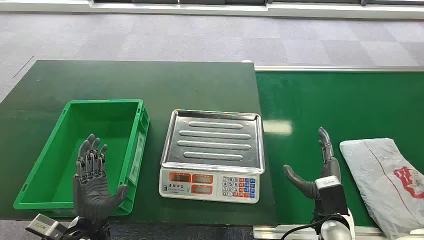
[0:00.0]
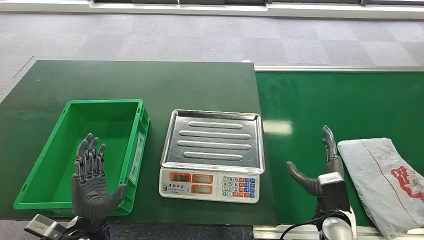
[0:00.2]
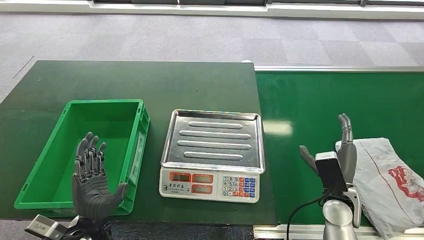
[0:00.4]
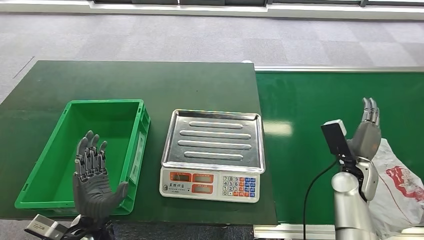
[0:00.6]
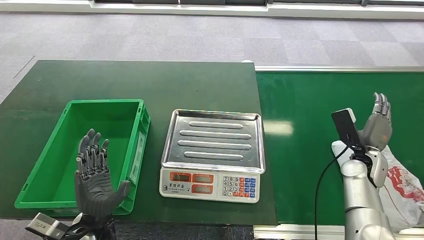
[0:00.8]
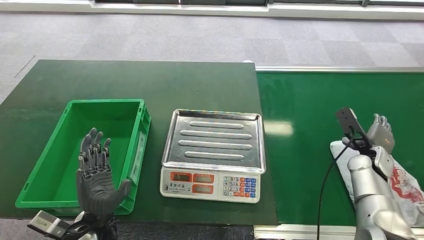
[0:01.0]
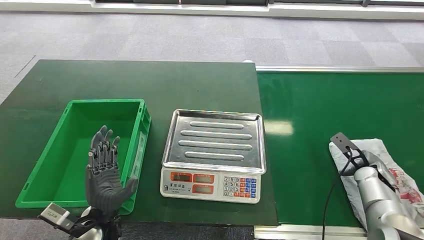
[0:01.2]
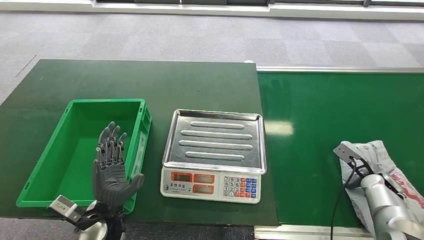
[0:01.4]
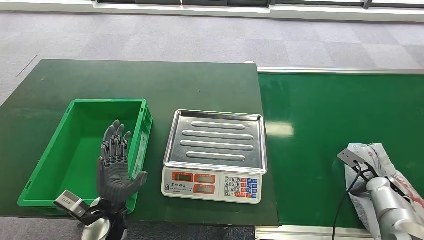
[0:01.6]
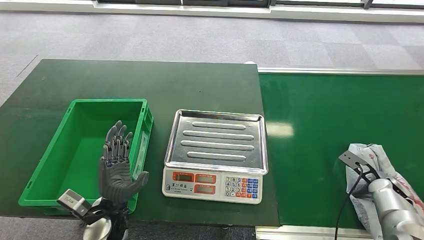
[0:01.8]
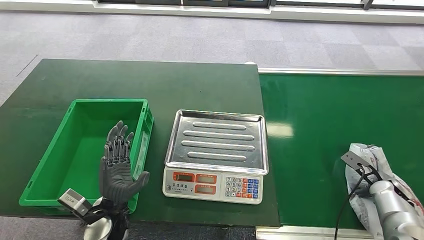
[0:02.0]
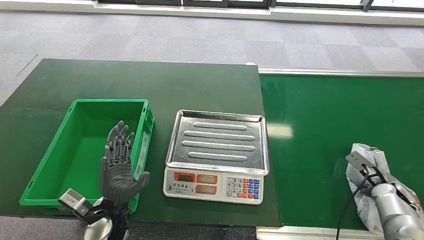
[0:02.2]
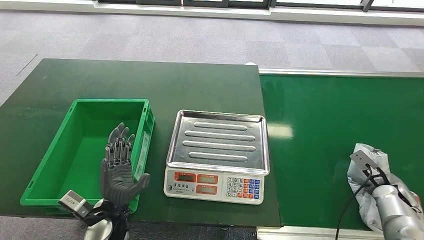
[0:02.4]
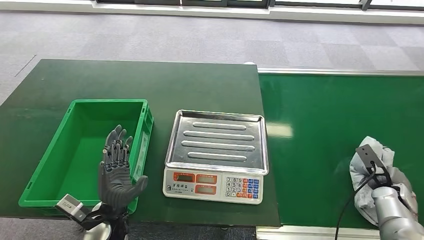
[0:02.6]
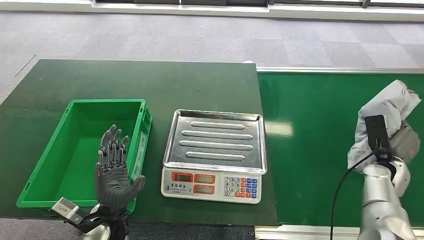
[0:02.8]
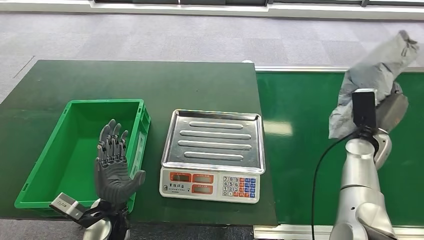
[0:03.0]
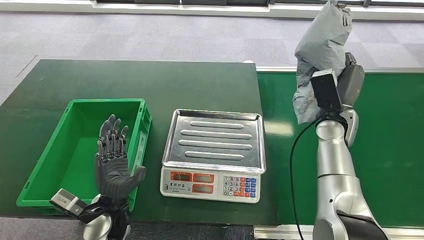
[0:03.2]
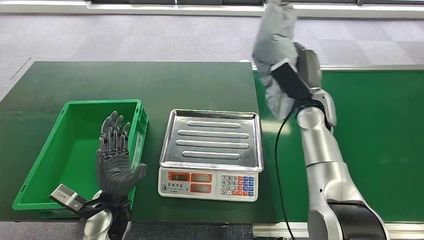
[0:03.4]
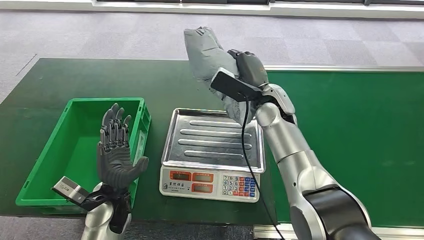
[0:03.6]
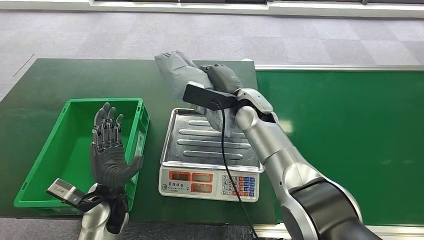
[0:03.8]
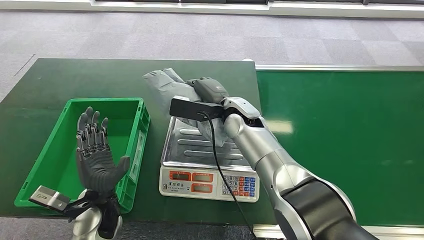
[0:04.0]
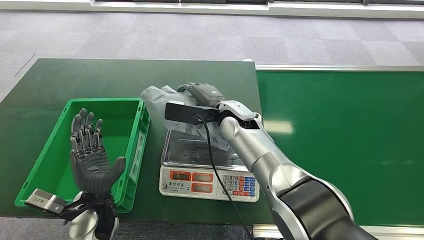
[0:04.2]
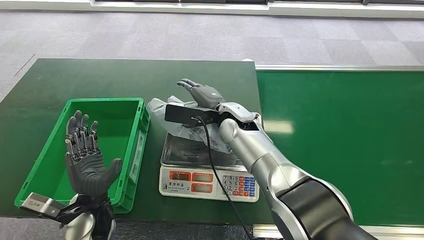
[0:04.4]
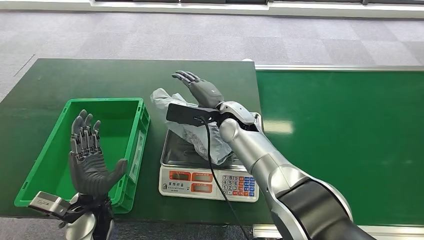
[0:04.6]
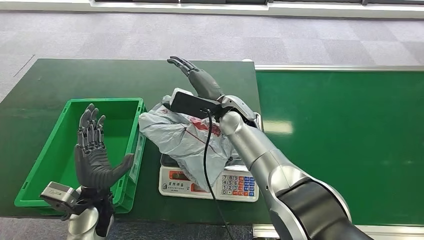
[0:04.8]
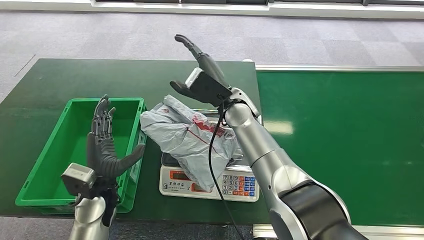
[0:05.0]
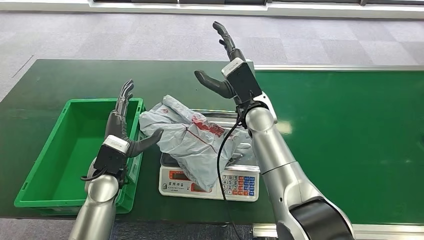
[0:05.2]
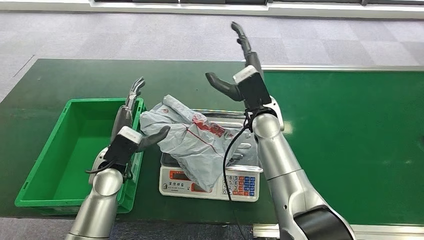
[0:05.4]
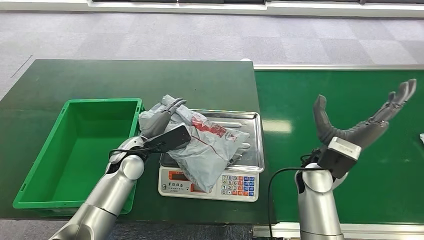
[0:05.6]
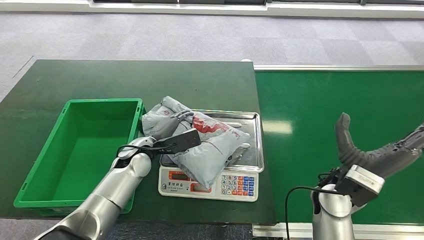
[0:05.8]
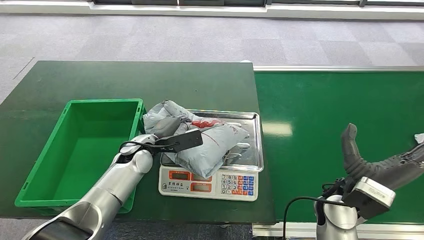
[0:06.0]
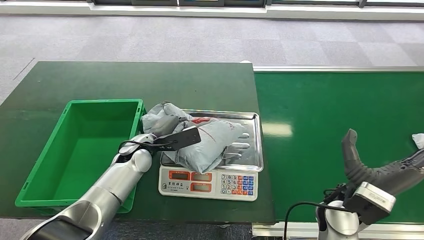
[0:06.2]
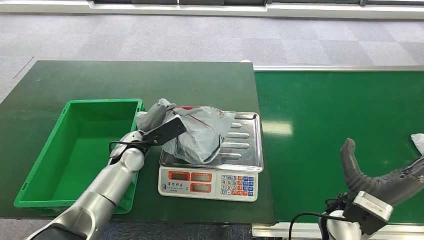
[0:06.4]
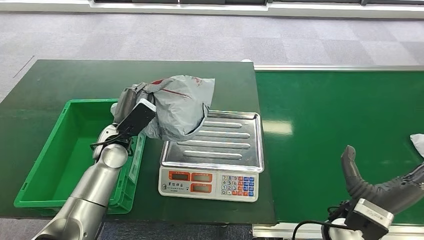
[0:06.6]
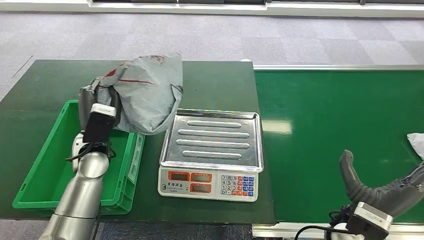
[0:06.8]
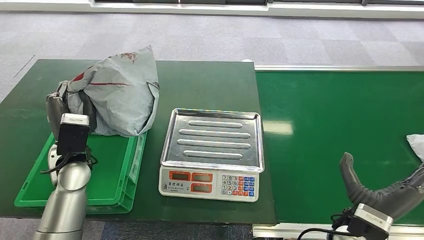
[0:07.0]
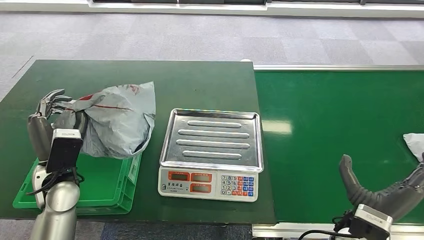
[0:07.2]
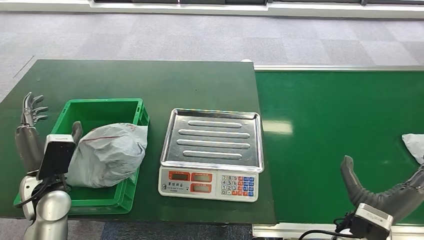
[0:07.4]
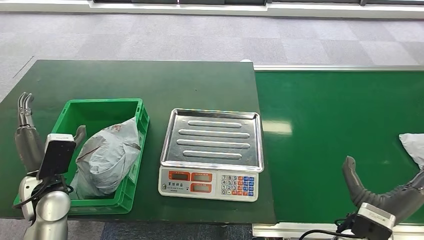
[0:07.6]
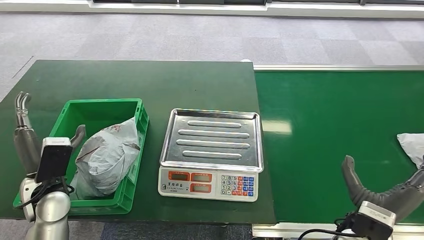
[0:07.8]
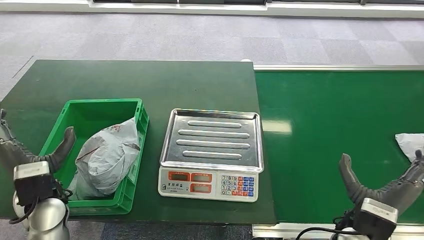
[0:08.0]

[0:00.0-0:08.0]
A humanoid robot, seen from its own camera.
Step, 0:00.0 to 0:03.2: Pick up the package from the conveyor belt.
Step, 0:03.4 to 0:04.8: Place the package onto the inbound machine.
Step, 0:05.2 to 0:06.4: Pick up the package from the inbound machine.
Step, 0:06.6 to 0:08.0: Place the package into the parcel locker.
